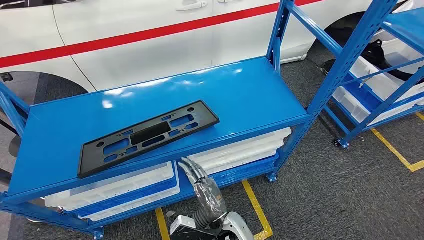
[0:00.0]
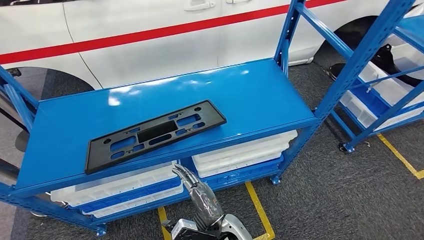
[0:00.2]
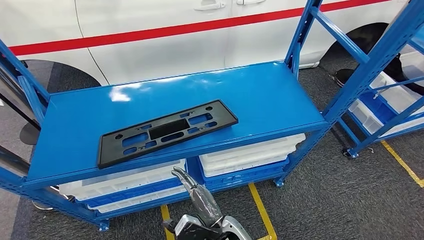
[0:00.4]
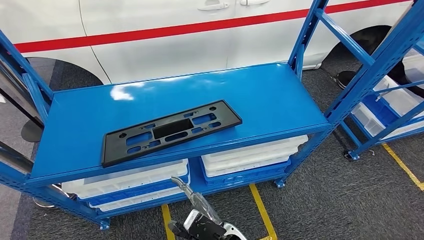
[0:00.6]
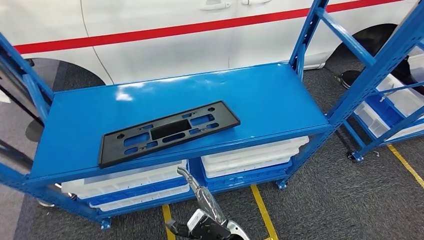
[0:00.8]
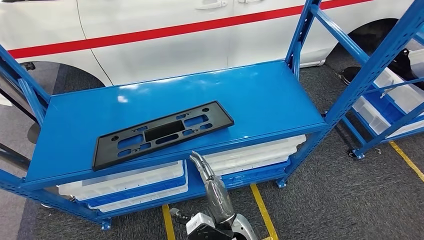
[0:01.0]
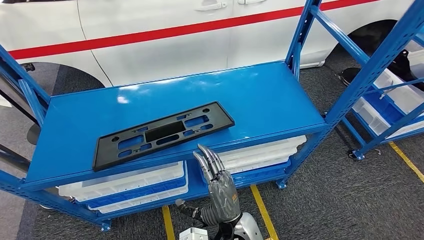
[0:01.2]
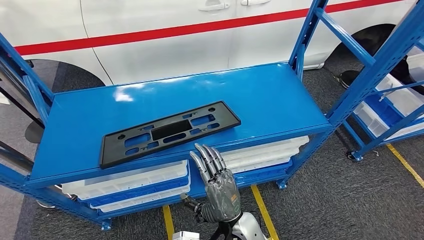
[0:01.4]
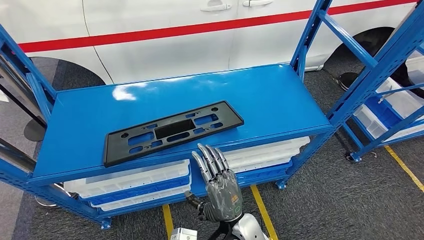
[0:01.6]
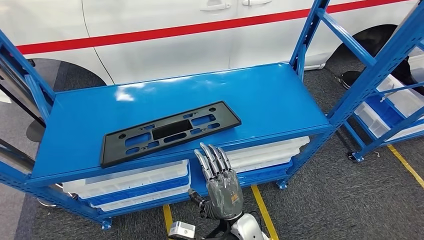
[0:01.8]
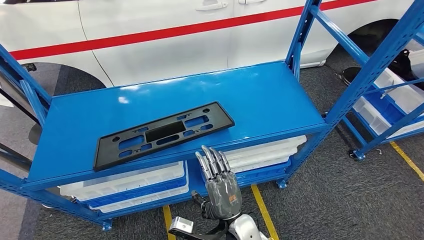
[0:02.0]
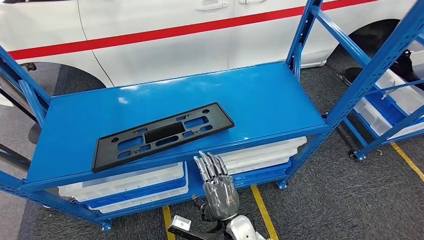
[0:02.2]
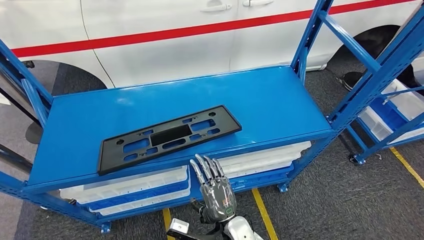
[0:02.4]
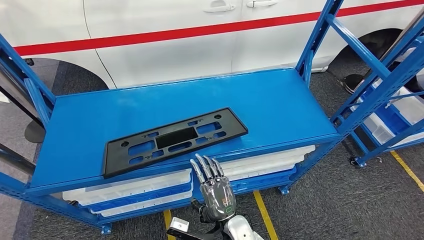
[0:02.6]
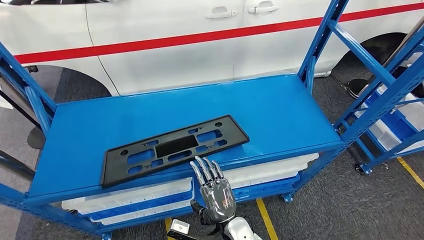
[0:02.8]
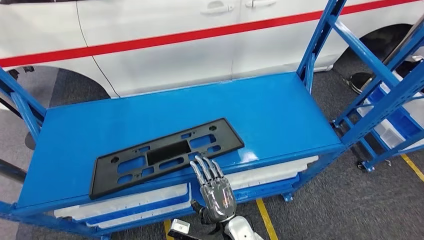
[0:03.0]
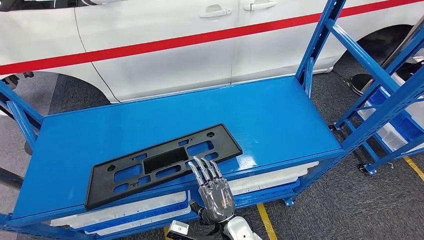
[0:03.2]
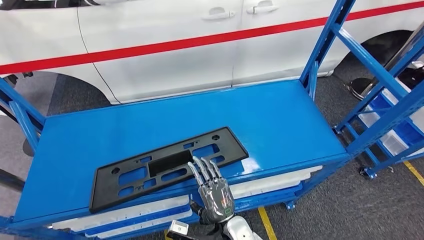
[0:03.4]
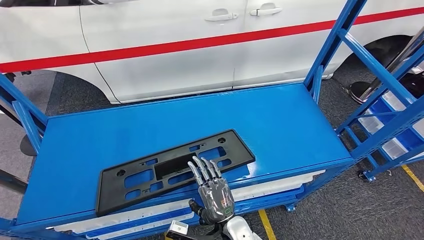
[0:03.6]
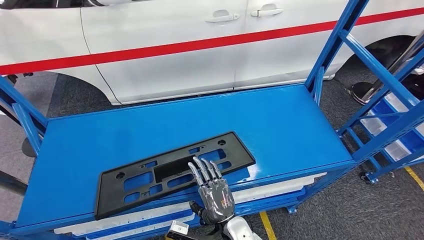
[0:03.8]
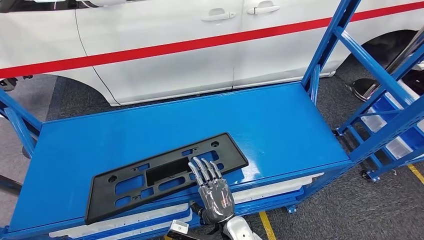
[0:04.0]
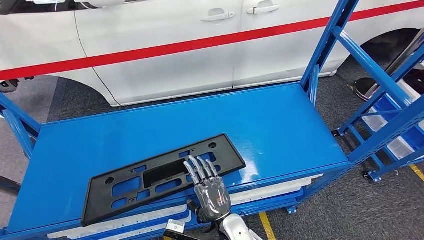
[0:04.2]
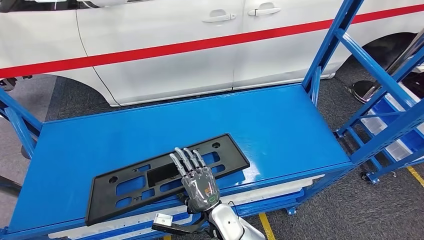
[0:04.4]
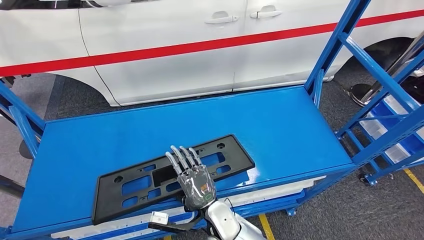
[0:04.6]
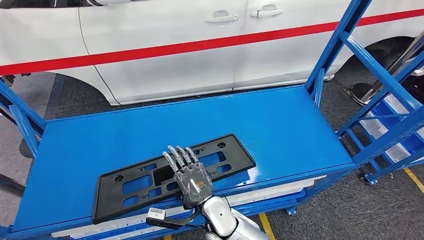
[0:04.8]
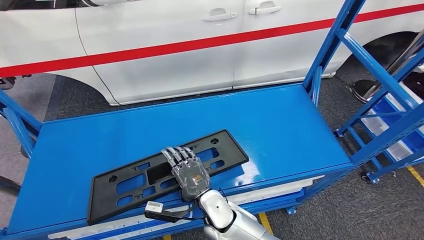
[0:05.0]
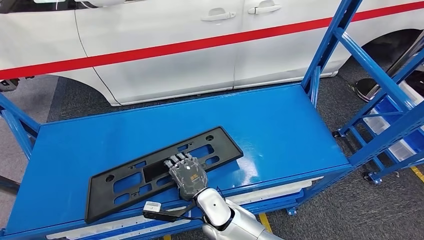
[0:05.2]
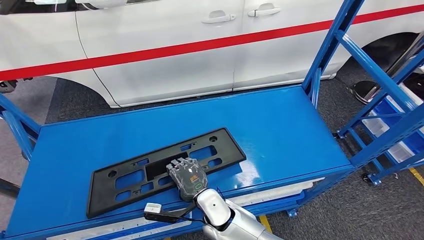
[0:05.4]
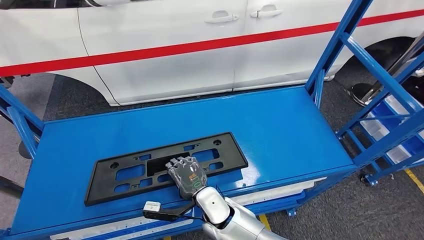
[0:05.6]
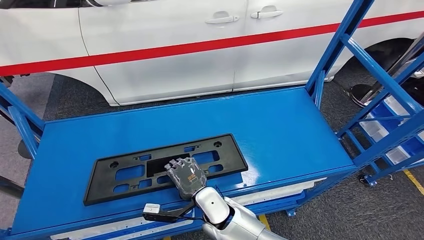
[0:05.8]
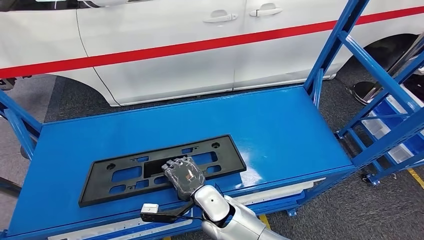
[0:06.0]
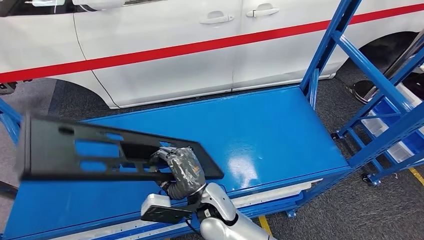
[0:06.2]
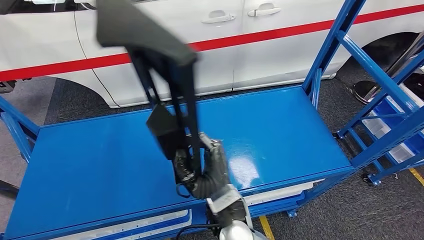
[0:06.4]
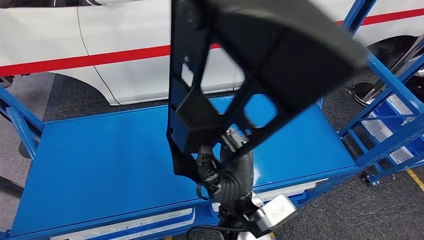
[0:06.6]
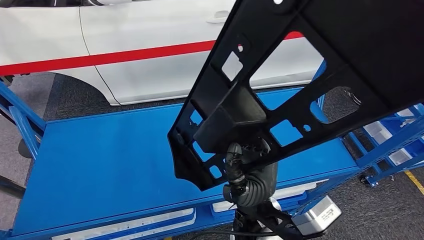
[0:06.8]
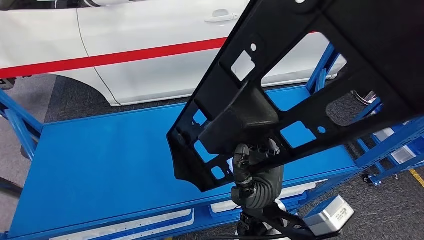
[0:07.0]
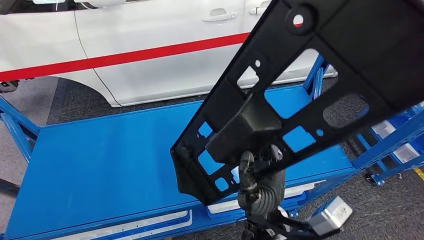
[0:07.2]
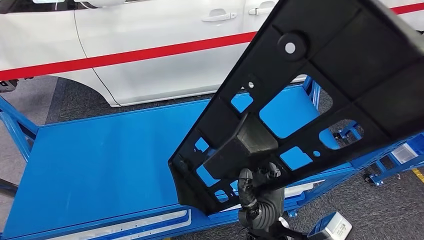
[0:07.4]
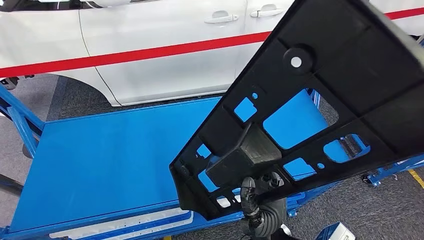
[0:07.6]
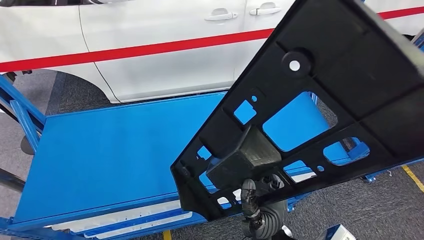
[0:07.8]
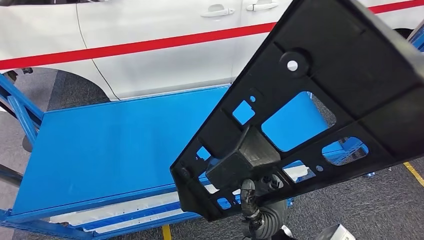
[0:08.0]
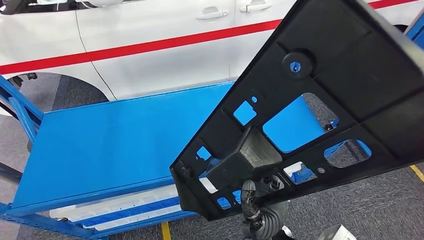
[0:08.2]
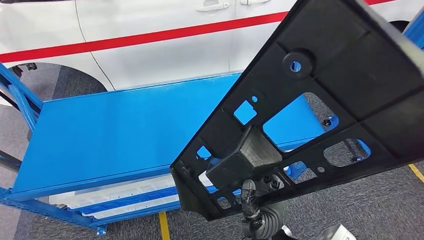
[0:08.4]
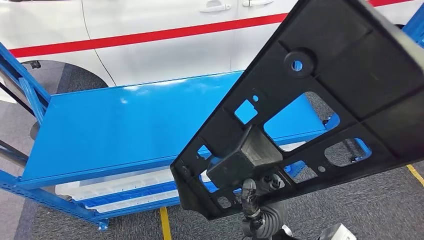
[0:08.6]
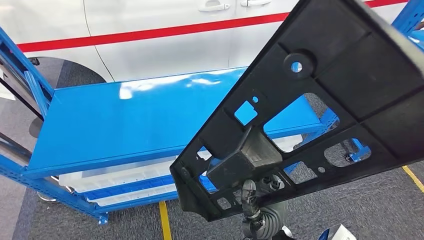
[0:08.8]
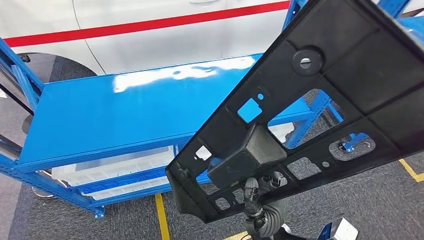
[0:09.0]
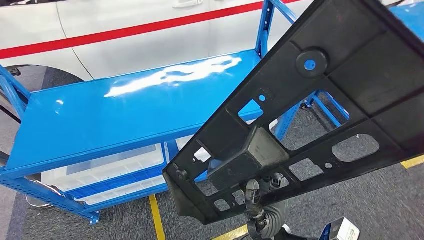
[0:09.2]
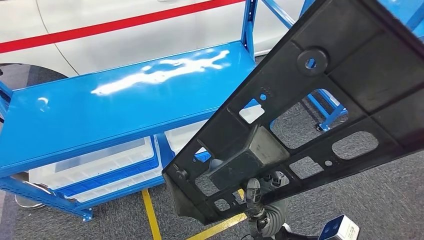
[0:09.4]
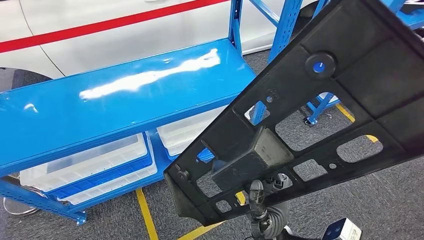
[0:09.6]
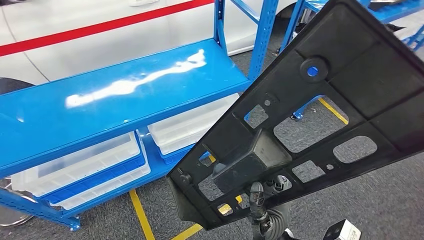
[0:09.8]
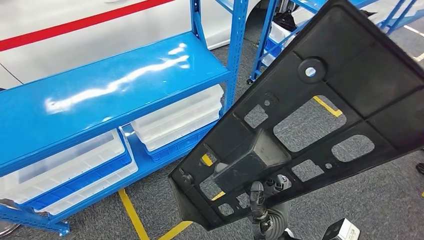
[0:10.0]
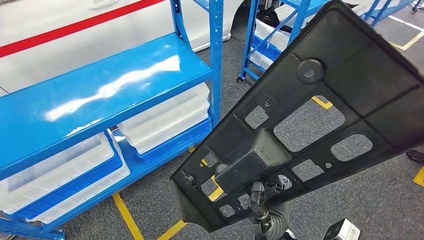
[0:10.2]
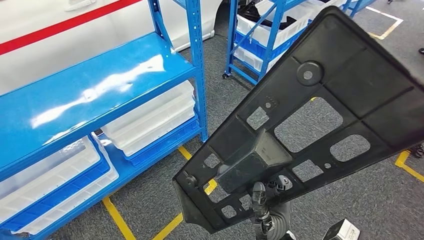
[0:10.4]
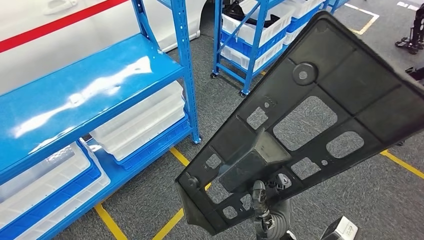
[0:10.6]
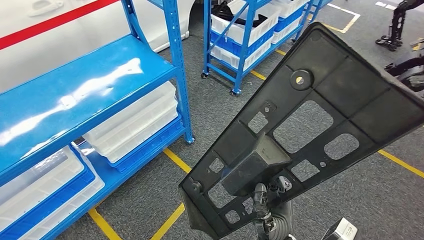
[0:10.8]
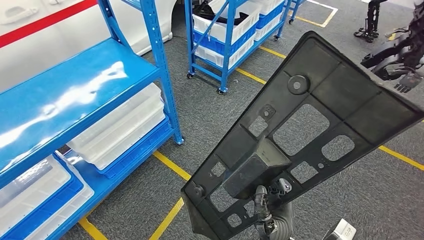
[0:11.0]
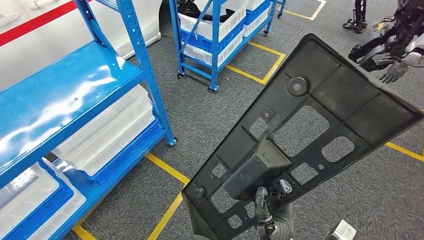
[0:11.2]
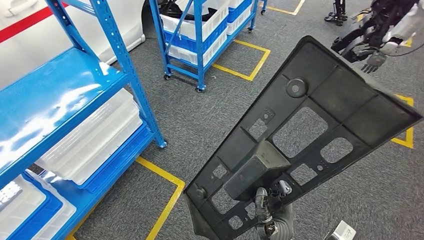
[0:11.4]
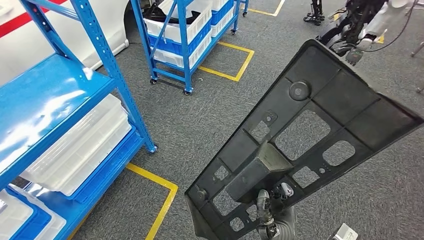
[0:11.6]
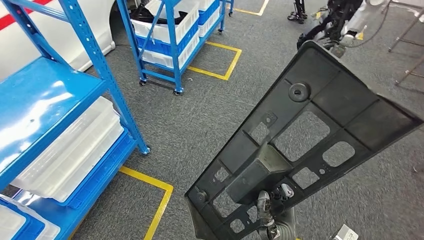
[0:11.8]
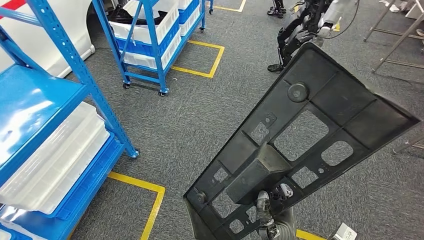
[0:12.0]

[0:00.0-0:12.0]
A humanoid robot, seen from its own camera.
Step, 0:00.0 to 0:08.0: Pick up the large material from the shelf.
0:04.4 to 0:06.0: The right hand changes place by roughly 5 cm.

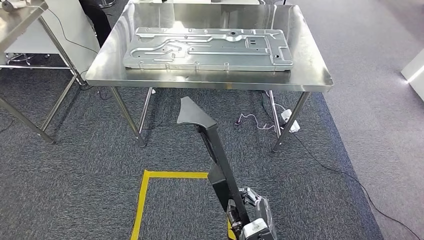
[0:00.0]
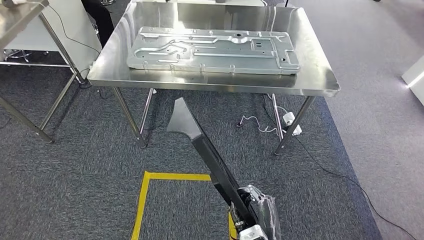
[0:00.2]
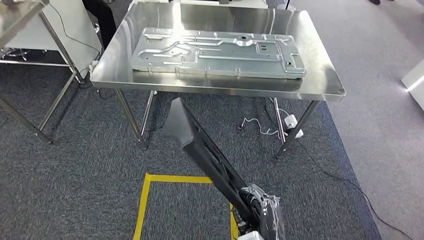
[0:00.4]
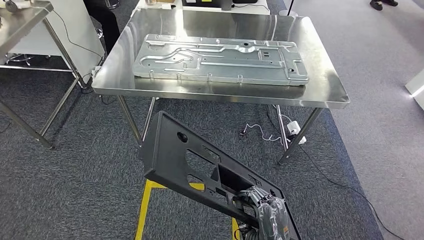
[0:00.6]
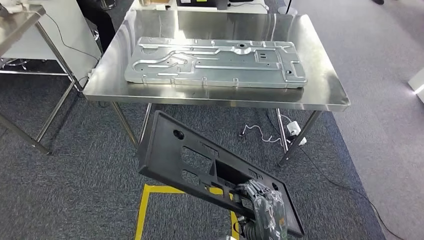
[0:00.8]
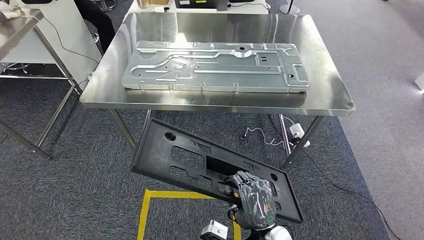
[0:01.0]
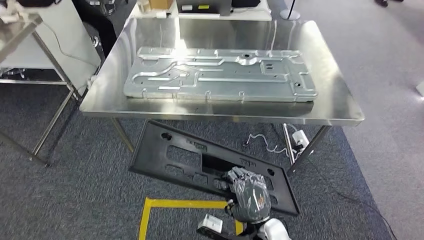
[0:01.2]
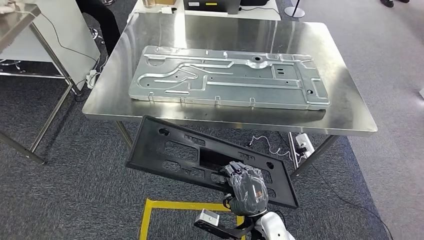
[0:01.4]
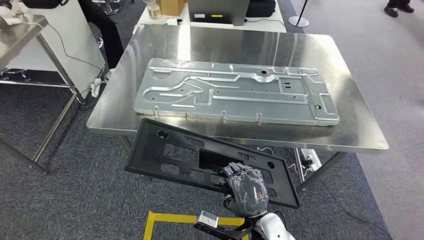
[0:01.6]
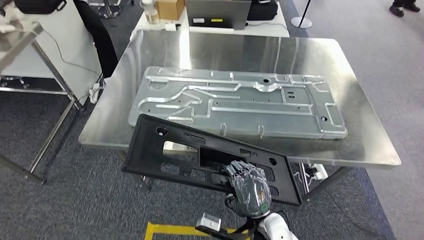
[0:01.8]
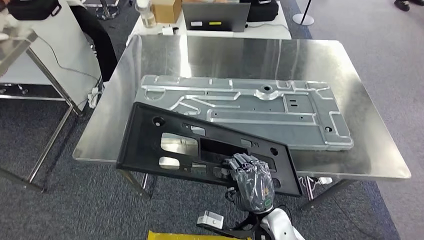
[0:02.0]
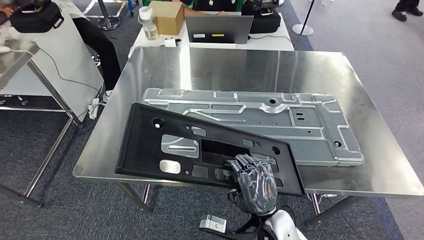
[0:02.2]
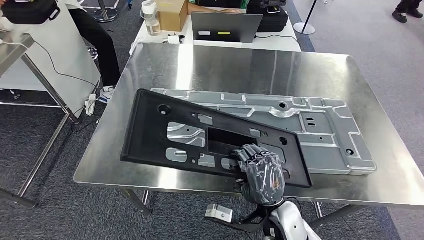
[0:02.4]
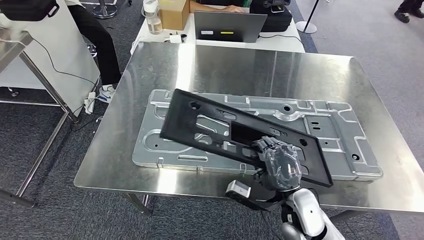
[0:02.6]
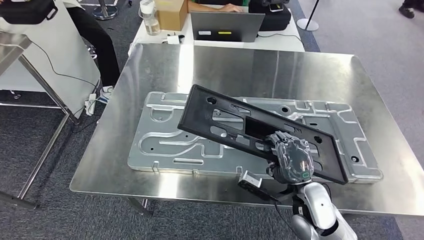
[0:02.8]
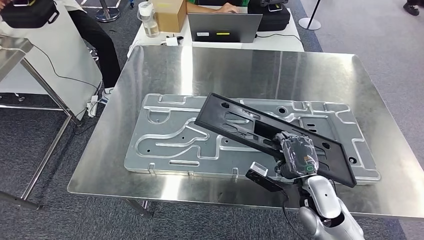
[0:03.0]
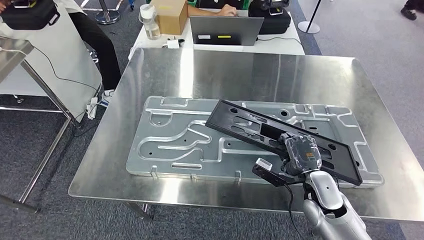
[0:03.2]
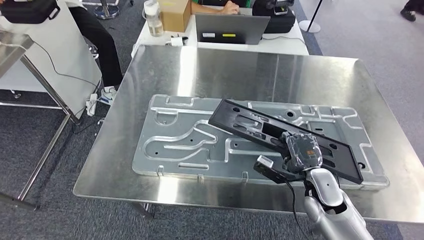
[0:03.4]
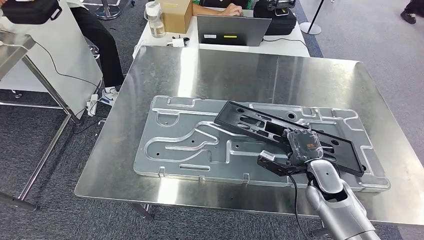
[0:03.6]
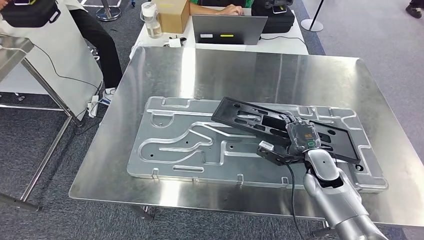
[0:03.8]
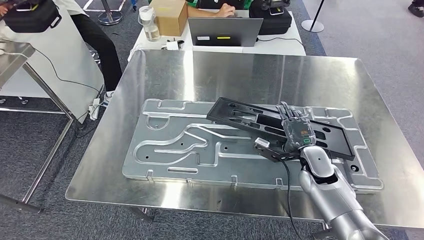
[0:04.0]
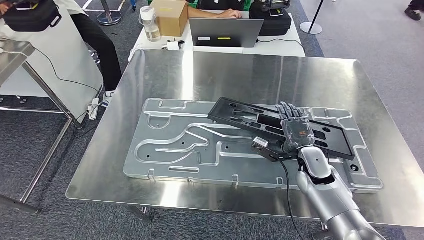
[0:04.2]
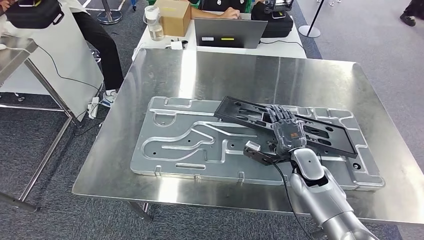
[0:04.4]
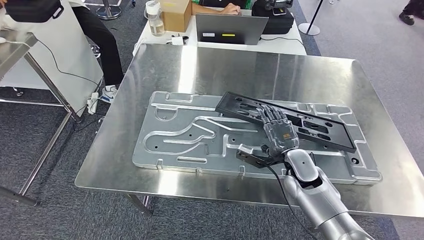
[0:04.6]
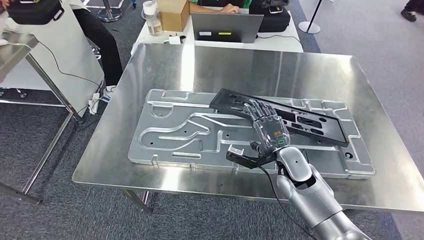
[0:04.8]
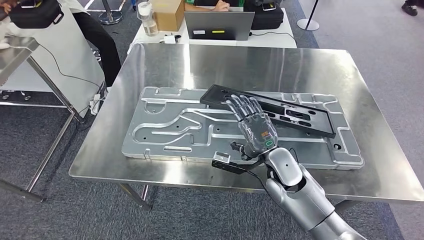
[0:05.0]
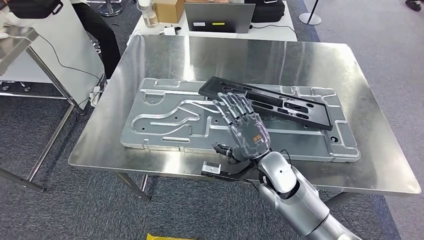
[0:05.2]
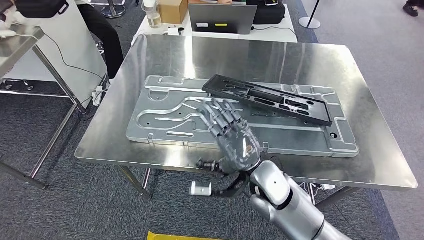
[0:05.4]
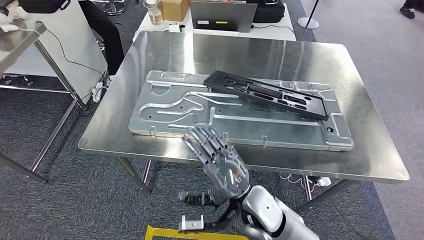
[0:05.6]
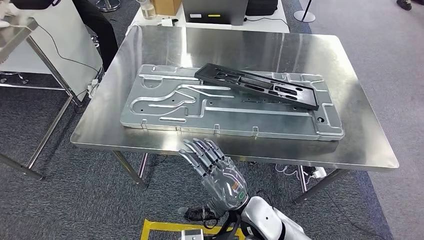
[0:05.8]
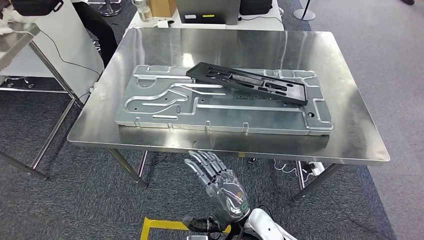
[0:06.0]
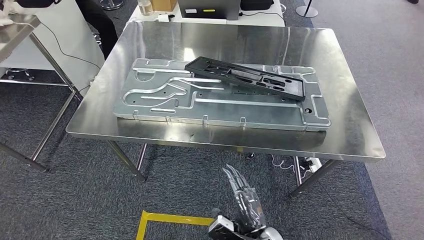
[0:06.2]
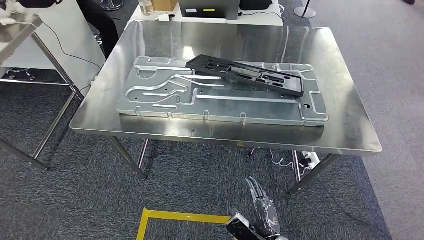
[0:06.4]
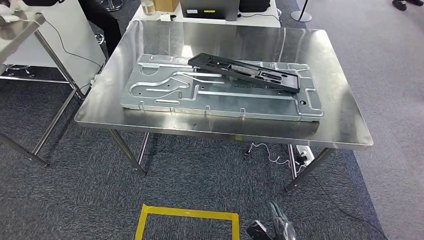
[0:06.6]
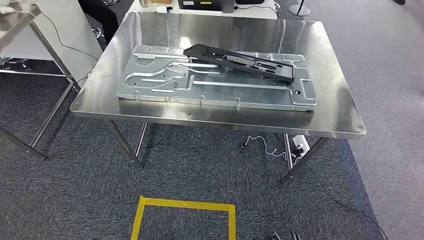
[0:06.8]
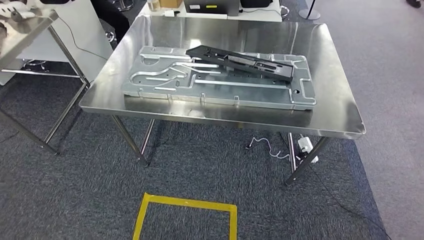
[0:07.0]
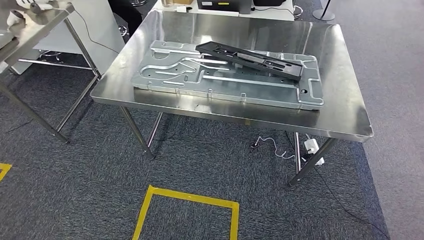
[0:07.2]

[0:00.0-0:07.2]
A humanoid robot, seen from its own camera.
Step, 0:01.4 to 0:07.2: Insert the large material into the corresponding slot on the workbench.
